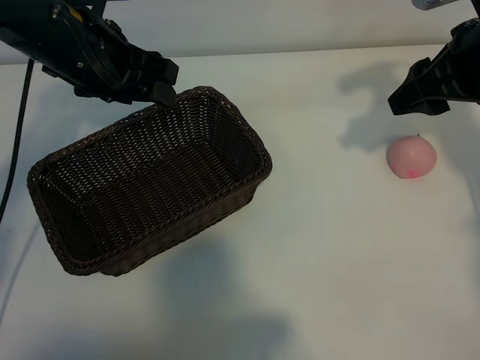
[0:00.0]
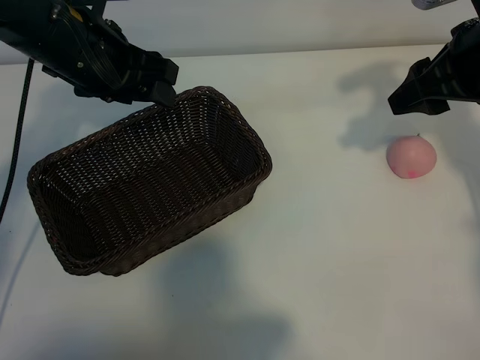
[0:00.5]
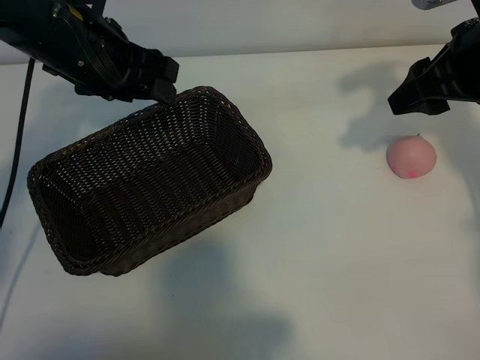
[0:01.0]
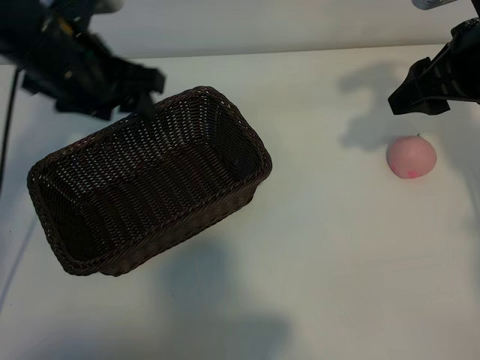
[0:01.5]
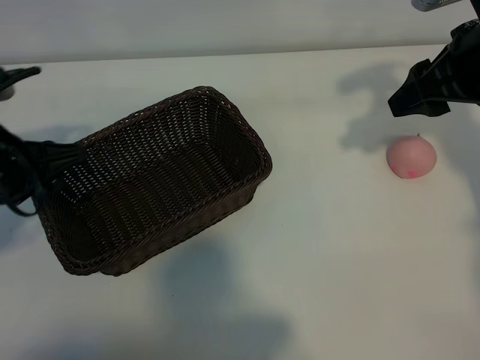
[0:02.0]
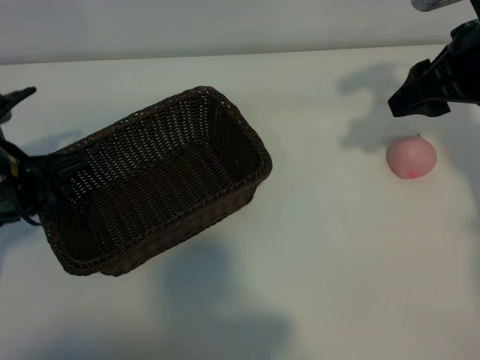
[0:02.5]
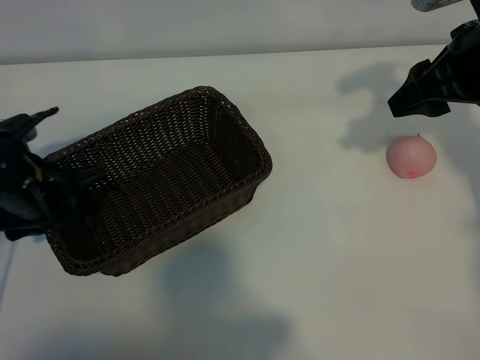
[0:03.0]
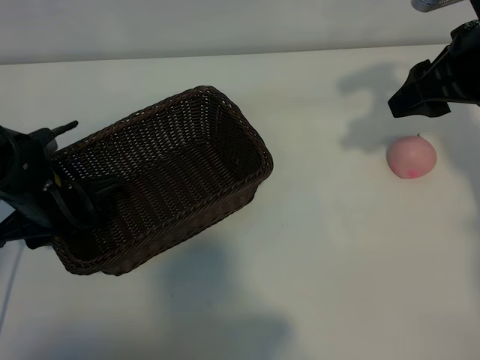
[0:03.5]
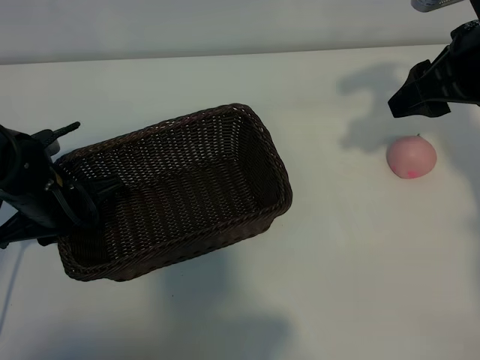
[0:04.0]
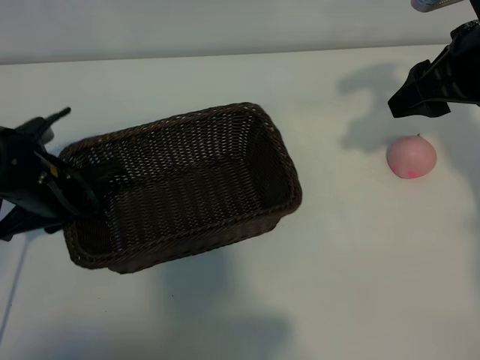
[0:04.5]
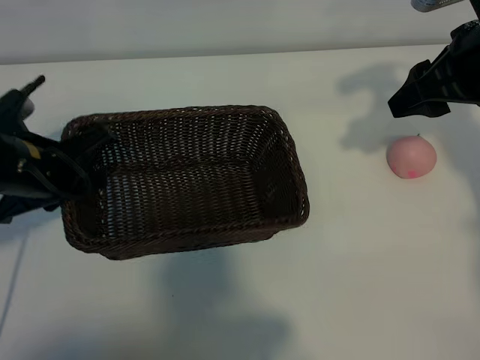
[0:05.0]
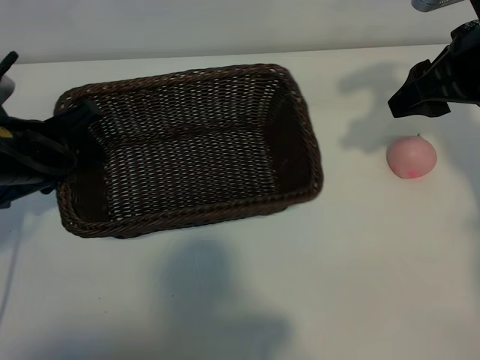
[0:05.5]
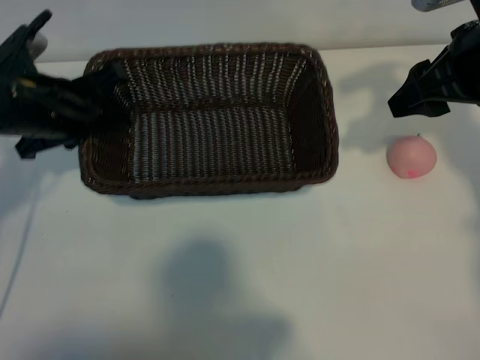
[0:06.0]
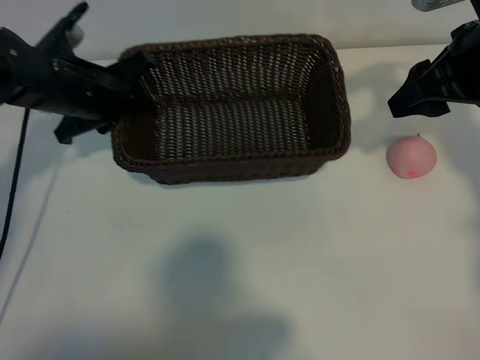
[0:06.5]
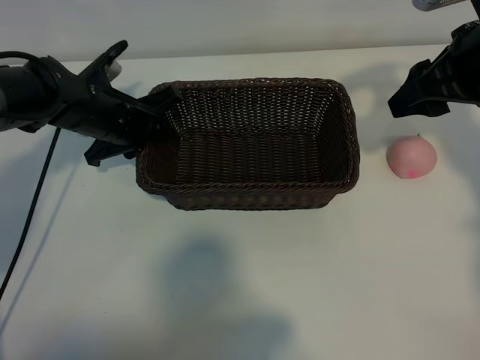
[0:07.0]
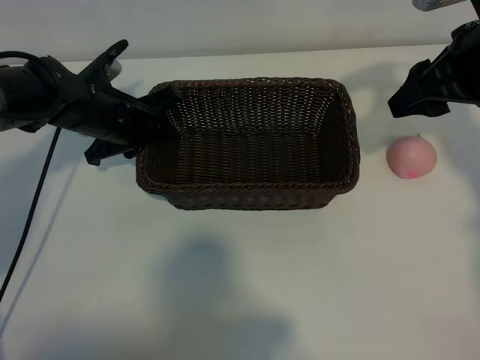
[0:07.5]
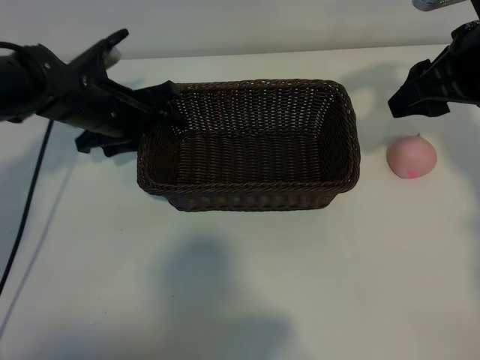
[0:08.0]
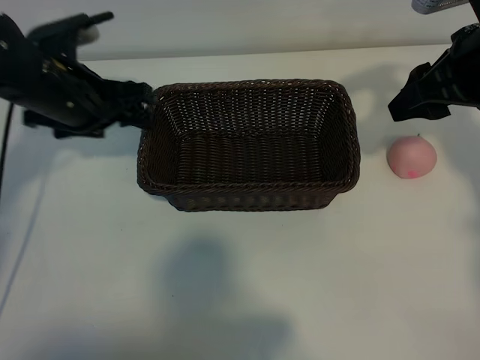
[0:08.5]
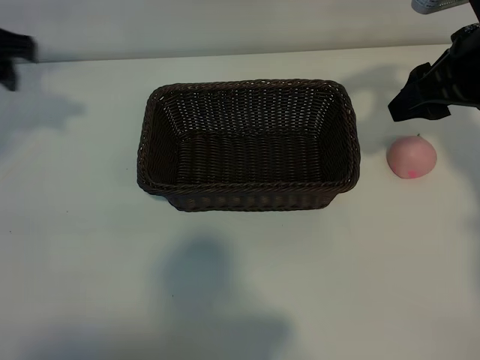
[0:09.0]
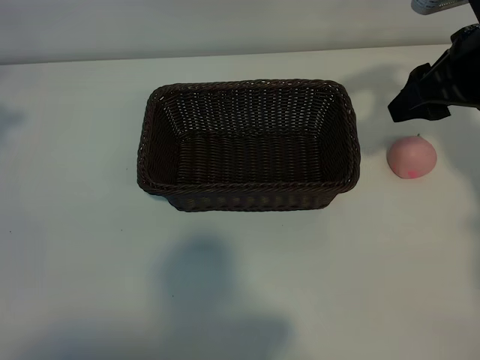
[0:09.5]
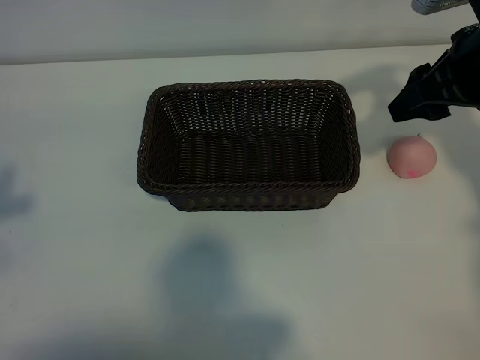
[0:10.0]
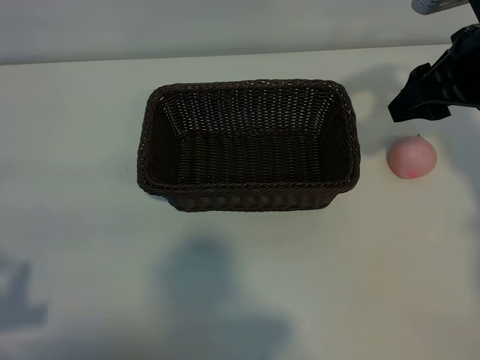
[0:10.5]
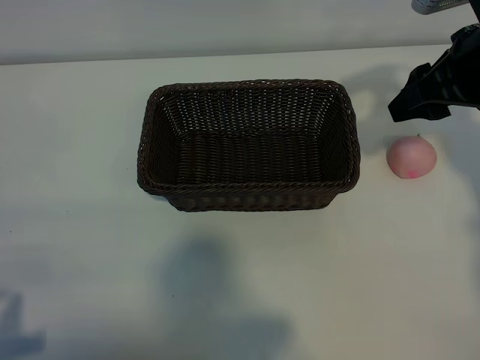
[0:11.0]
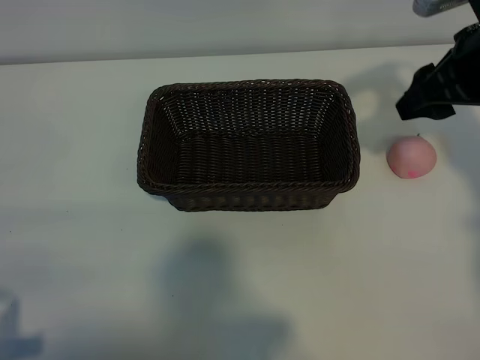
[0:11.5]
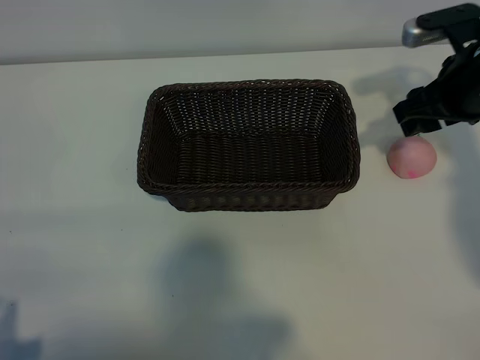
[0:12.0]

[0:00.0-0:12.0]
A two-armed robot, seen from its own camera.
Task of the whole recording: pick up the peach and put it into the basket.
Step, 0:01.0 to 0:03.5: Grasp the basket with left gripper.
Step, 0:04.0 to 0:08.0: Place the basket in the center of view with left gripper.

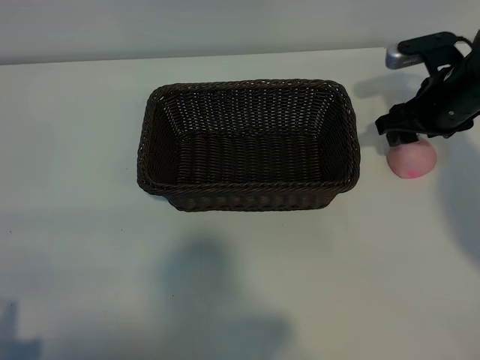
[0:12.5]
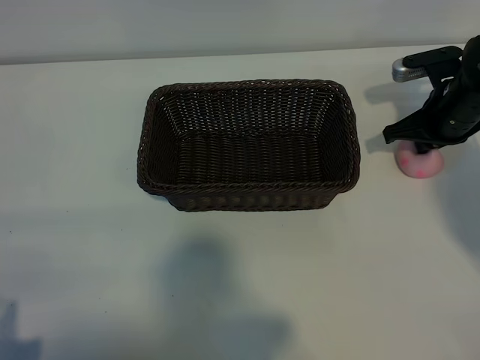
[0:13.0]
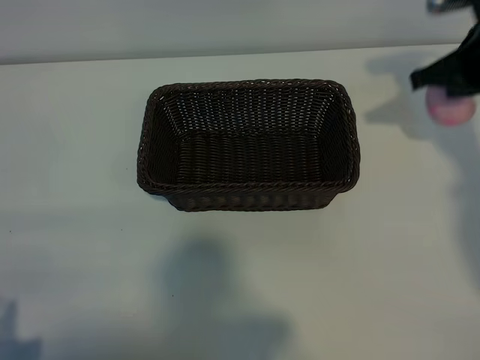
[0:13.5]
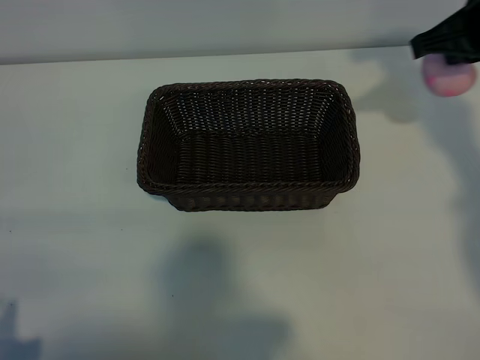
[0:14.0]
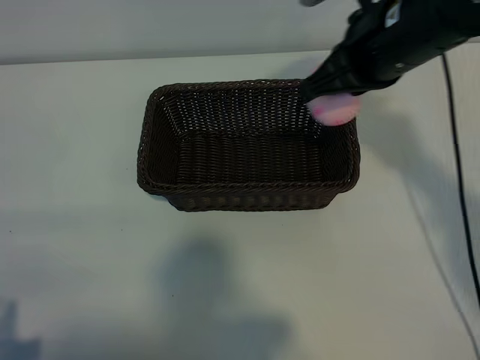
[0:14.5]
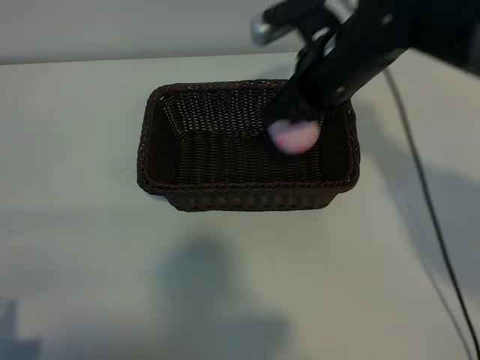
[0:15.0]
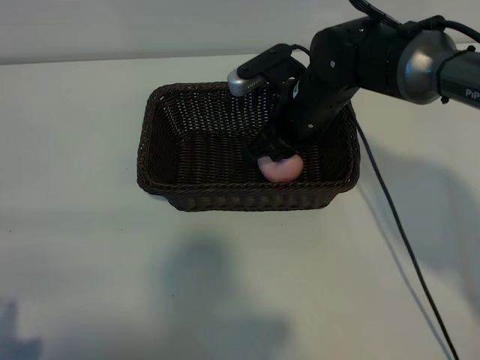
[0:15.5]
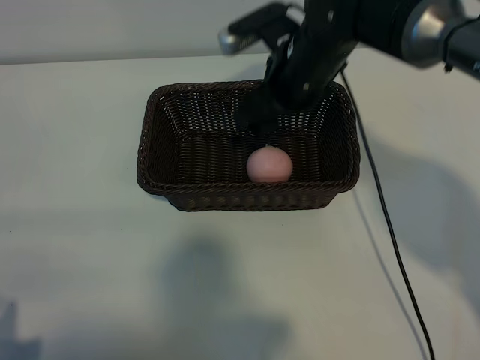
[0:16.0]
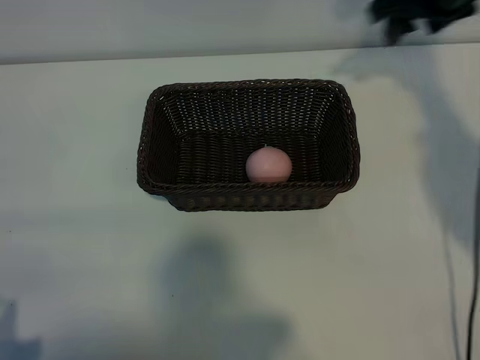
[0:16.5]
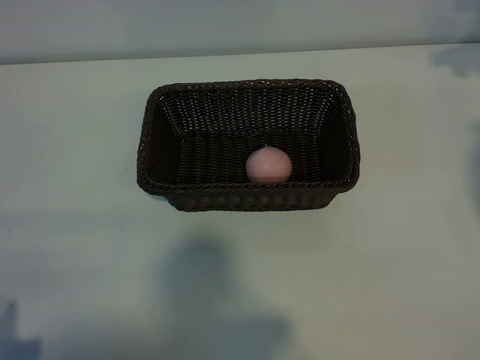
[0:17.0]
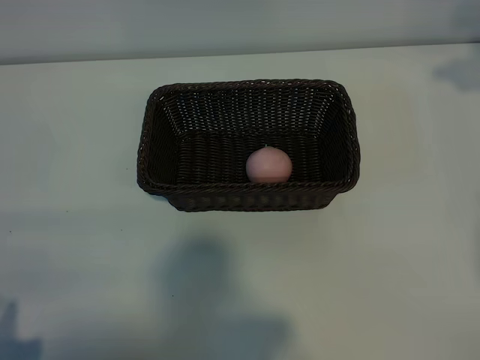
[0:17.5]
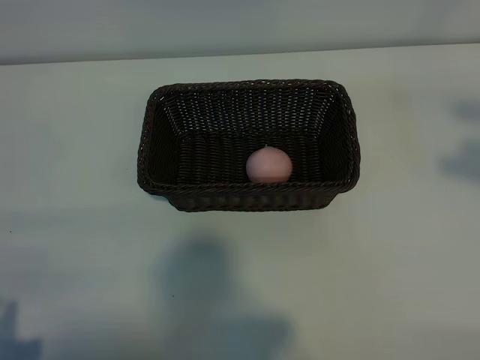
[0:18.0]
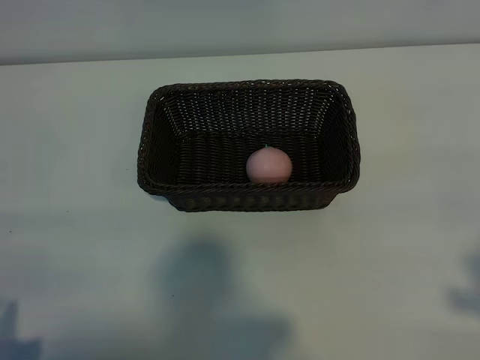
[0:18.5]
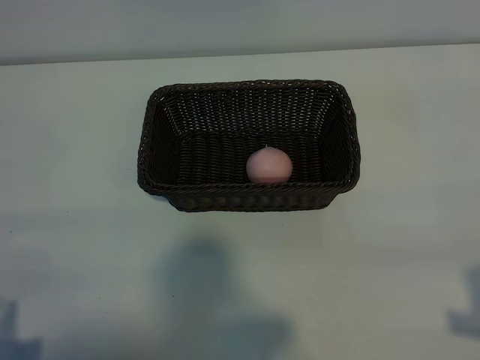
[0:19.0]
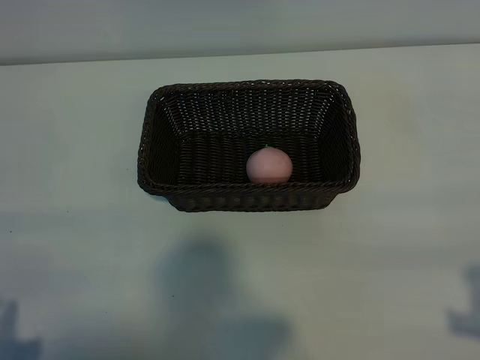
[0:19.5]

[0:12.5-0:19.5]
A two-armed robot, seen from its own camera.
Task of the whole recording: pick up the peach and put it into the basket.
Step, 0:13.5 to 0:15.5: Place the peach in the basket with right gripper.
